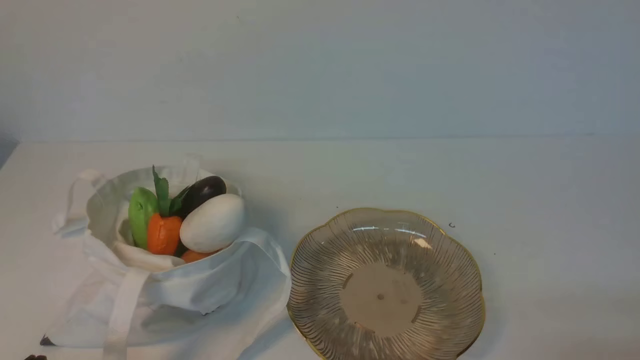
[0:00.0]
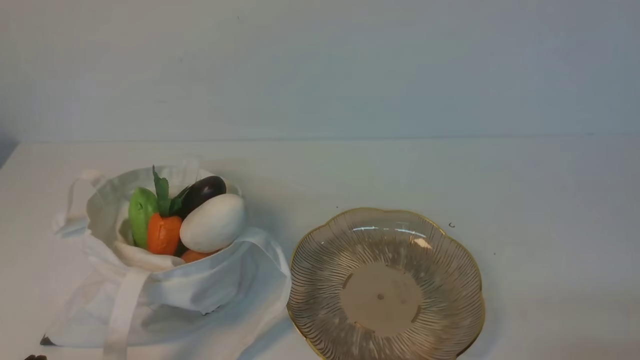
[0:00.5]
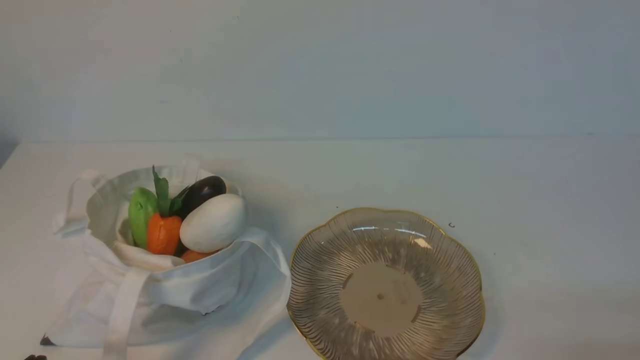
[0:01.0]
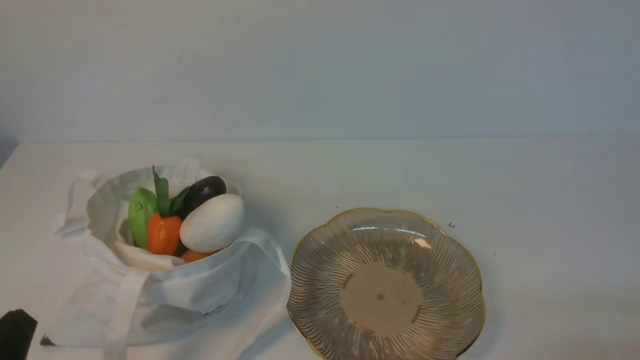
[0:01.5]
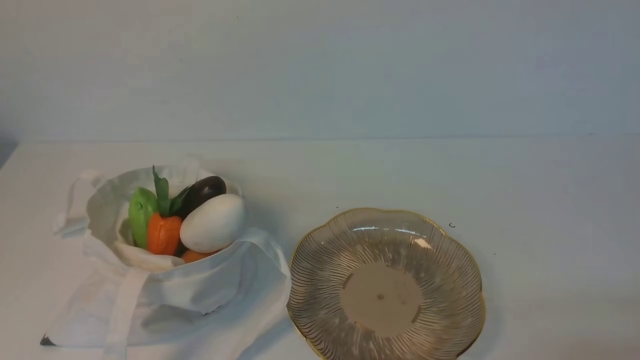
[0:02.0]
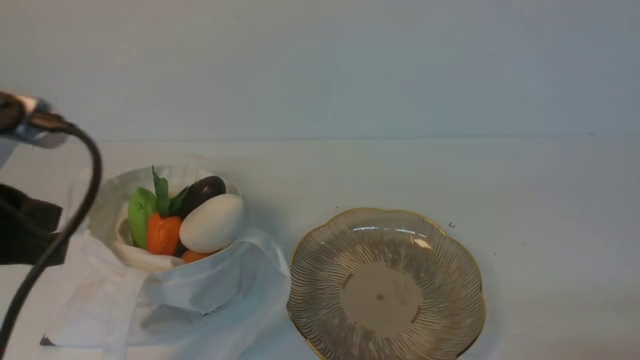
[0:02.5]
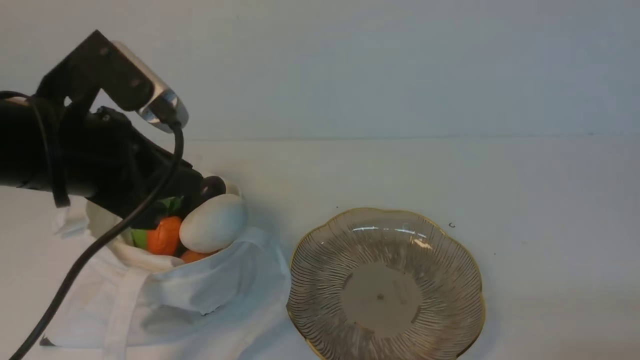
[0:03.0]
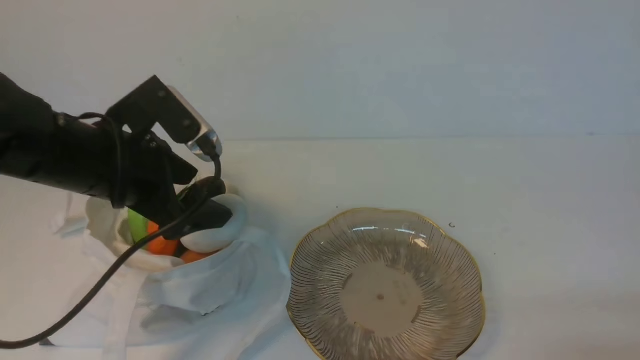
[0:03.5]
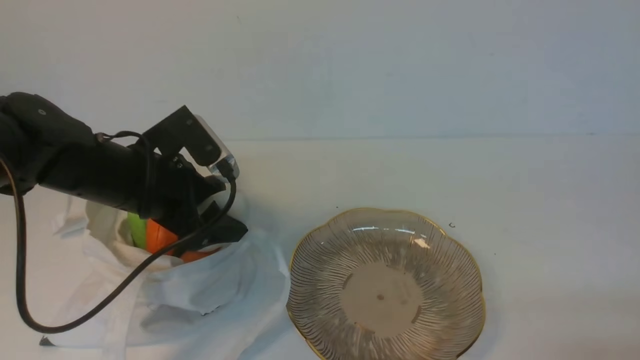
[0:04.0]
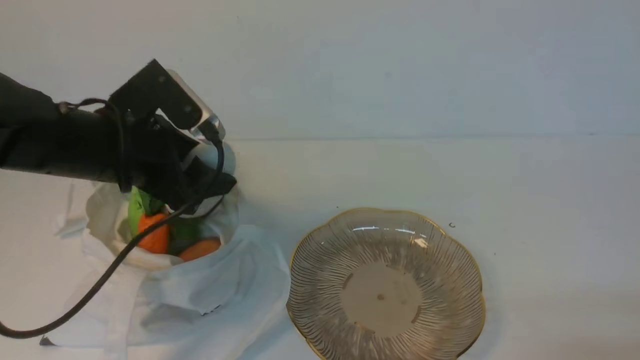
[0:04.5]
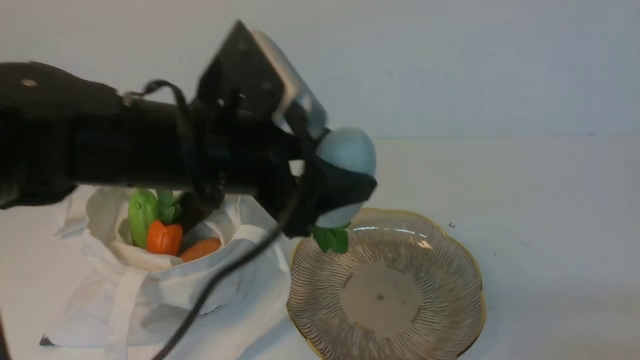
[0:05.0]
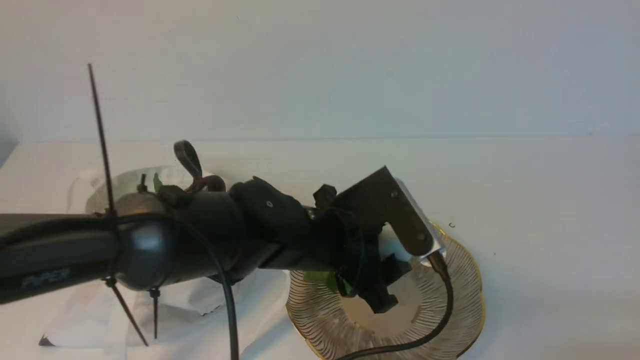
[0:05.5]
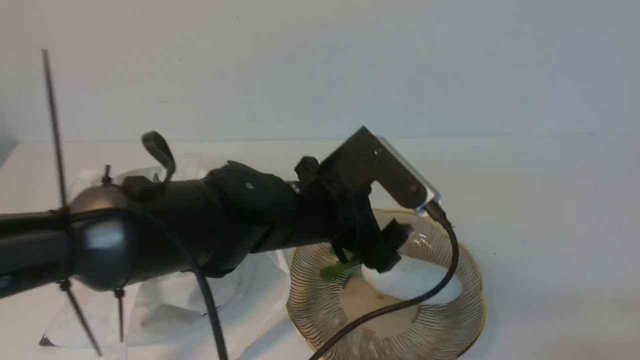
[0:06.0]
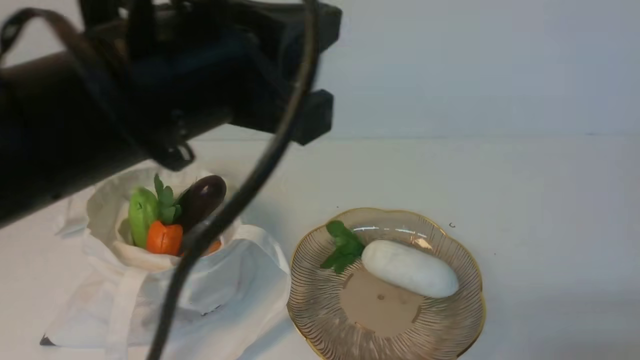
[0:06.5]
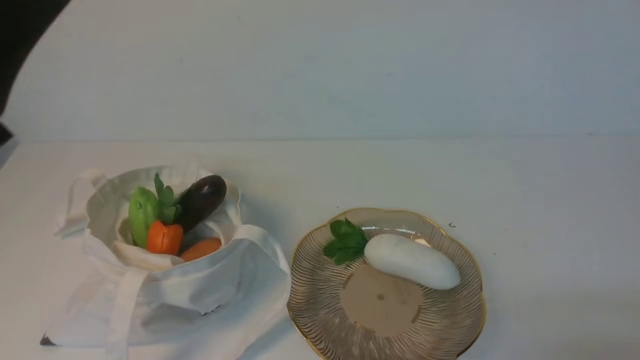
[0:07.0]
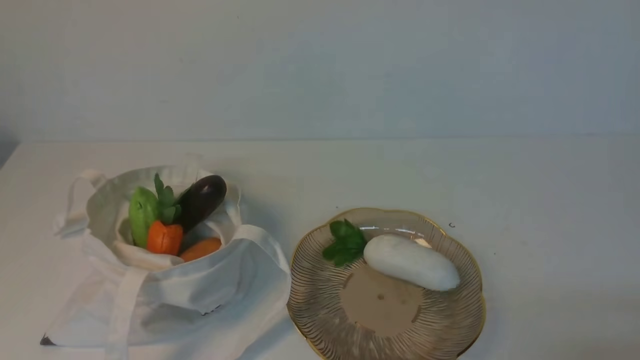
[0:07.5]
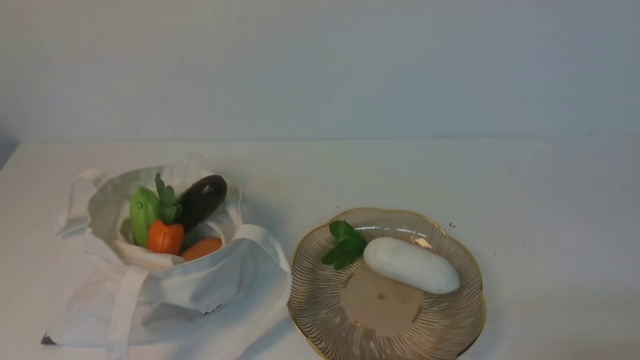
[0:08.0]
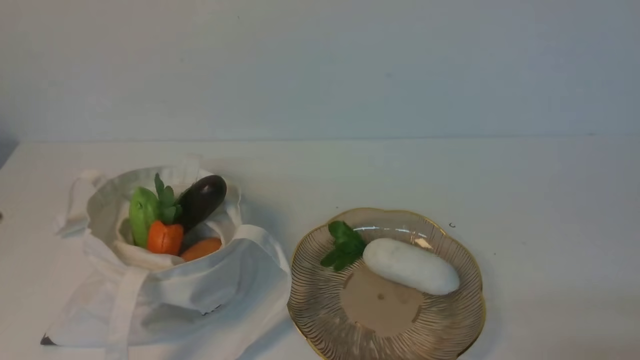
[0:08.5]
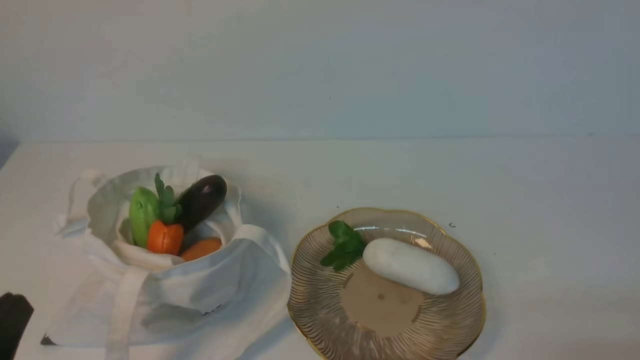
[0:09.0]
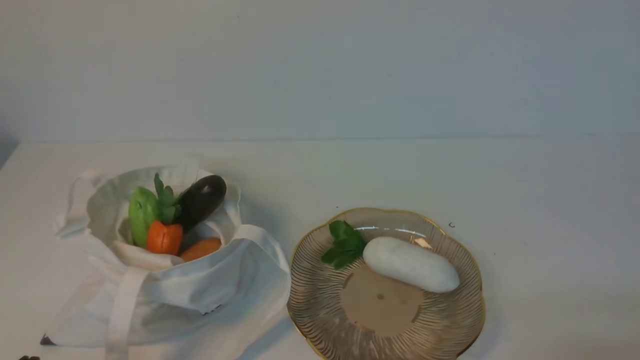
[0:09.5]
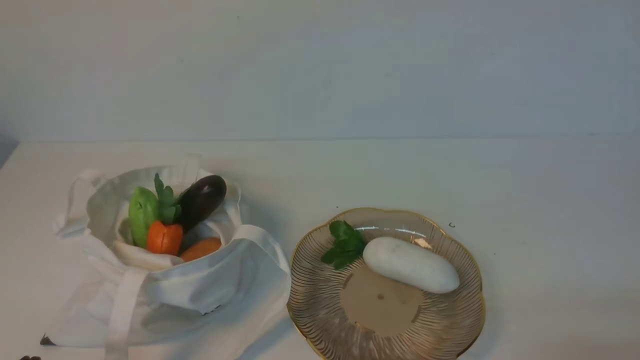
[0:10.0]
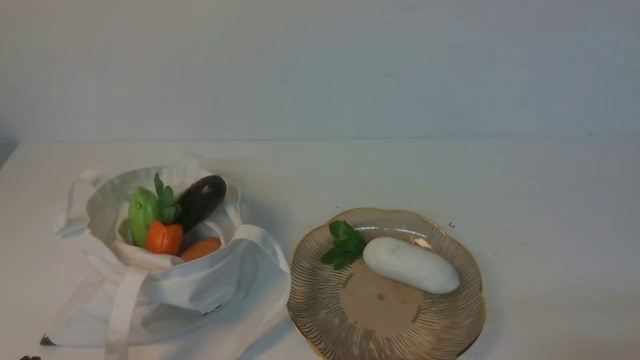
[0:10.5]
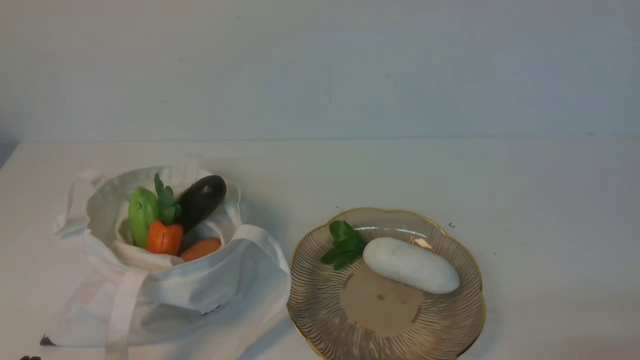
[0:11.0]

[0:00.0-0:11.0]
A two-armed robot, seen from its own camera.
Task of the whole recording: take vegetables from cloth bag on white table place on plate.
Step, 0:00.0 to 0:04.0: Grasp the radish with left gripper.
Step, 0:04.5 to 0:06.0: Place the radish on the plate with left gripper.
0:02.0 to 0:03.5: The left gripper travels forward by roughly 25 cm, and opens.
0:03.5 to 0:05.5: The left gripper shifts some 20 cm to the right.
0:05.5 to 0:07.5: The left gripper moves upward, to the left and backward, roughly 35 cm, and closes up.
0:07.5 to 0:09.0: The left gripper heads downward, covering some 15 cm.
0:09.0 to 0:11.0: The left gripper shifts about 10 cm downward.
